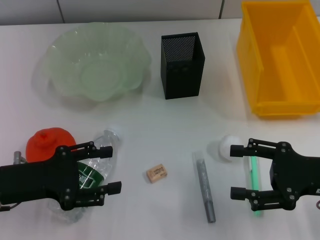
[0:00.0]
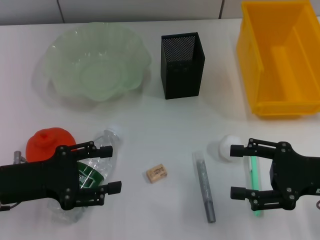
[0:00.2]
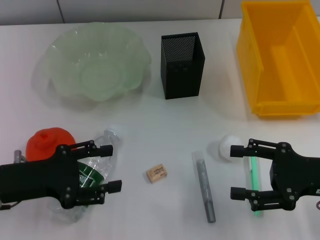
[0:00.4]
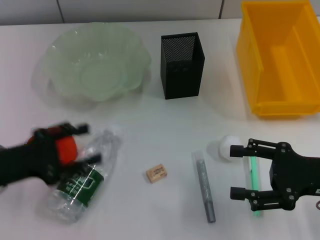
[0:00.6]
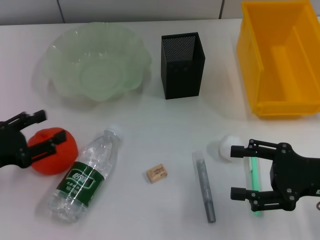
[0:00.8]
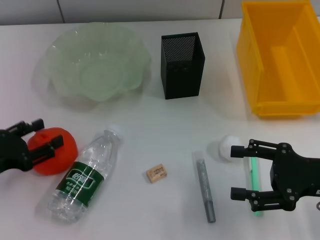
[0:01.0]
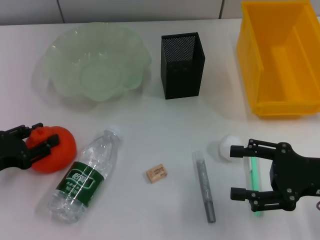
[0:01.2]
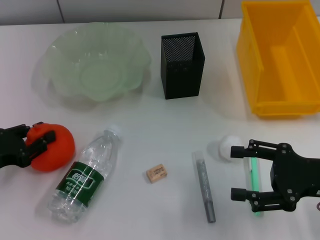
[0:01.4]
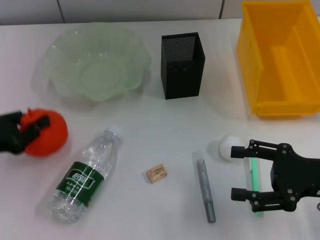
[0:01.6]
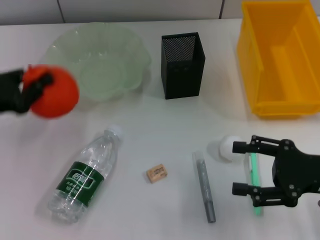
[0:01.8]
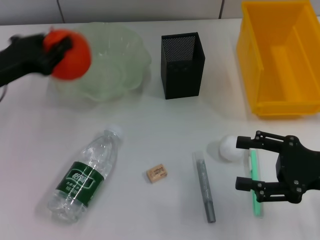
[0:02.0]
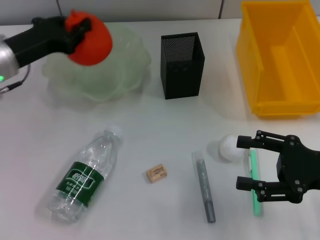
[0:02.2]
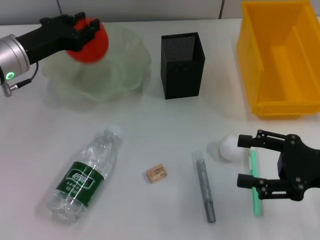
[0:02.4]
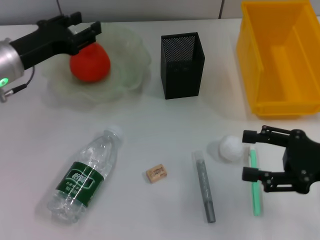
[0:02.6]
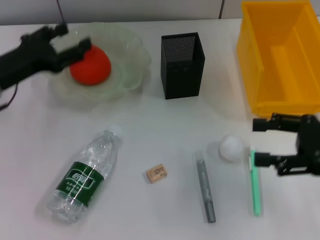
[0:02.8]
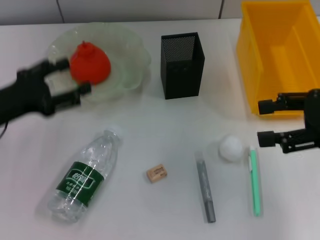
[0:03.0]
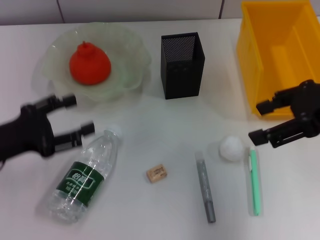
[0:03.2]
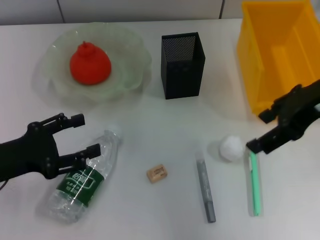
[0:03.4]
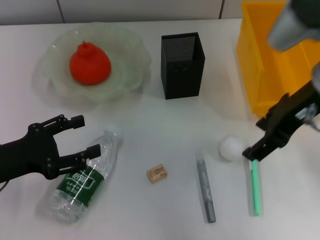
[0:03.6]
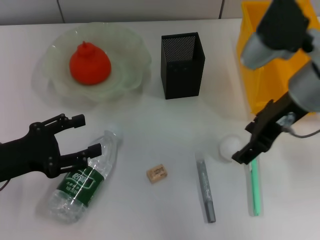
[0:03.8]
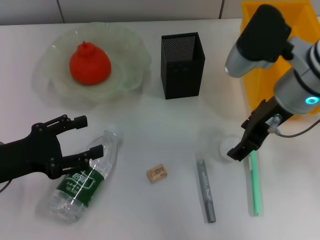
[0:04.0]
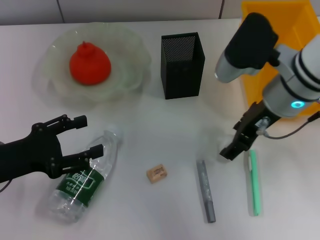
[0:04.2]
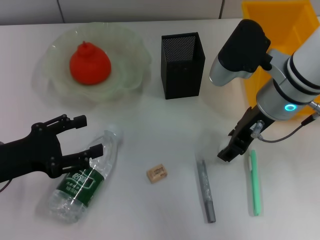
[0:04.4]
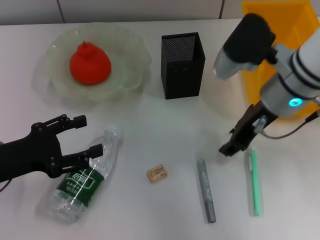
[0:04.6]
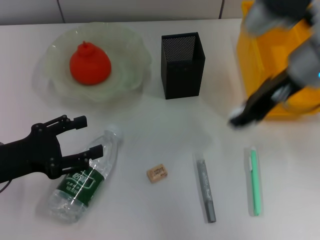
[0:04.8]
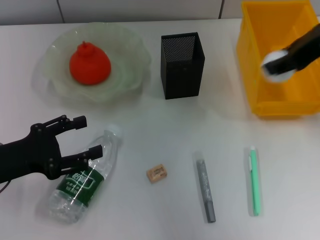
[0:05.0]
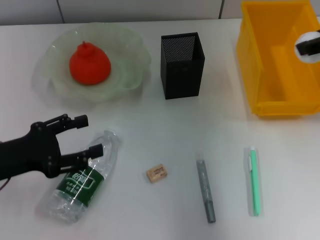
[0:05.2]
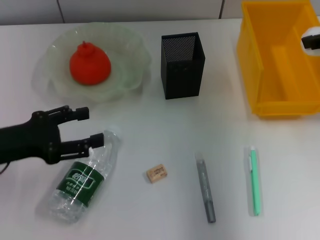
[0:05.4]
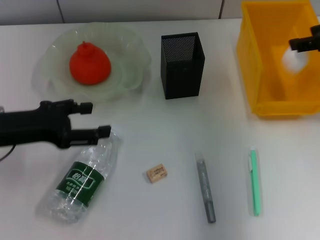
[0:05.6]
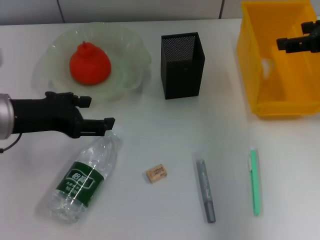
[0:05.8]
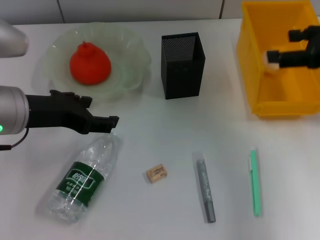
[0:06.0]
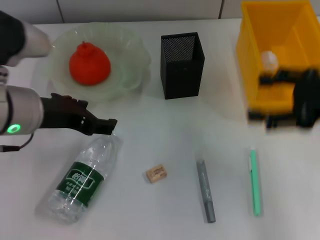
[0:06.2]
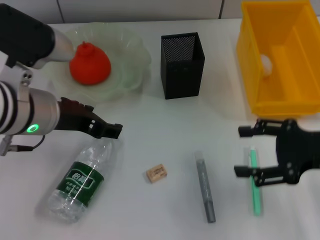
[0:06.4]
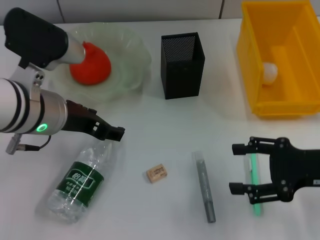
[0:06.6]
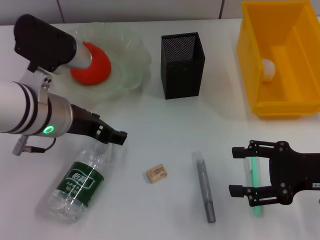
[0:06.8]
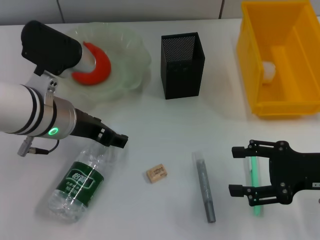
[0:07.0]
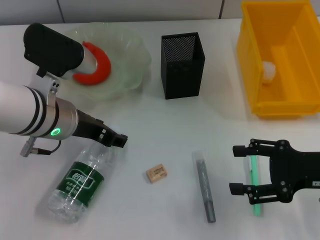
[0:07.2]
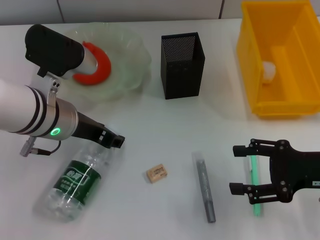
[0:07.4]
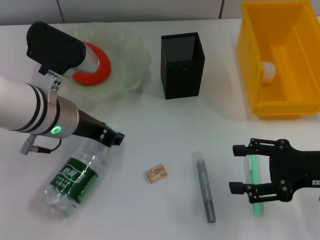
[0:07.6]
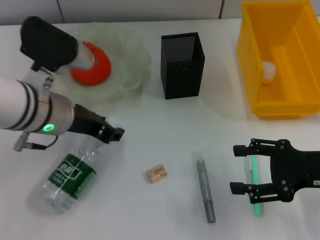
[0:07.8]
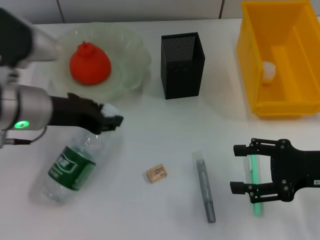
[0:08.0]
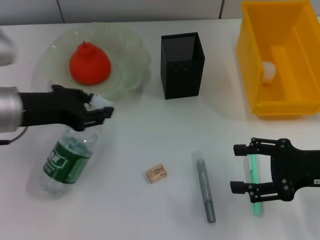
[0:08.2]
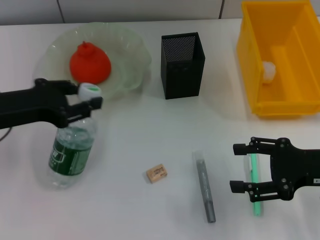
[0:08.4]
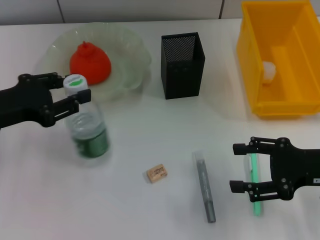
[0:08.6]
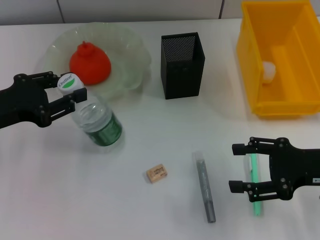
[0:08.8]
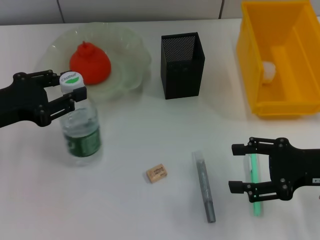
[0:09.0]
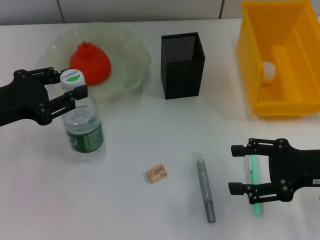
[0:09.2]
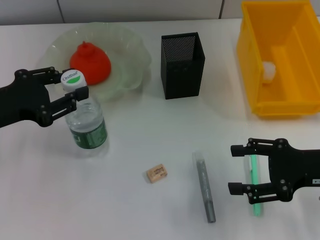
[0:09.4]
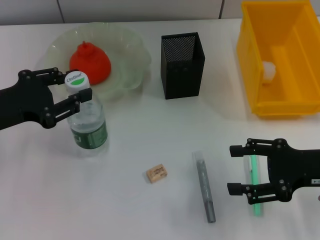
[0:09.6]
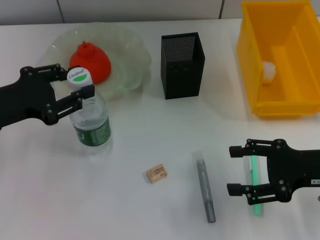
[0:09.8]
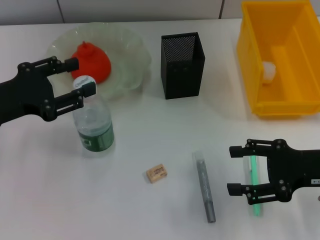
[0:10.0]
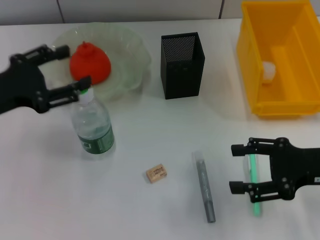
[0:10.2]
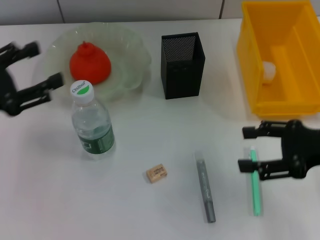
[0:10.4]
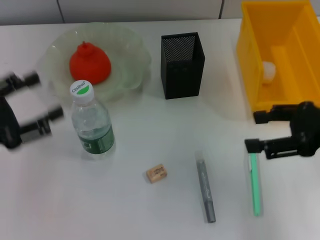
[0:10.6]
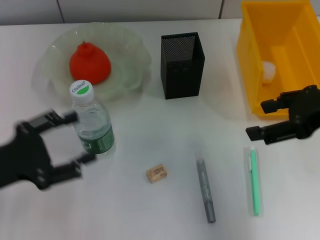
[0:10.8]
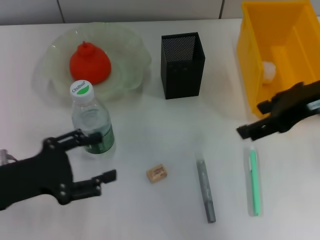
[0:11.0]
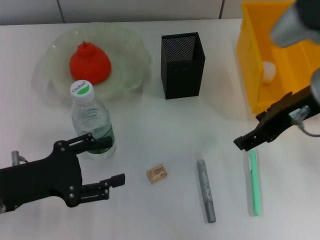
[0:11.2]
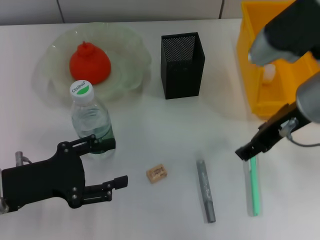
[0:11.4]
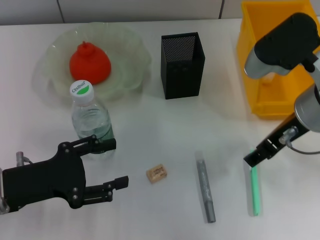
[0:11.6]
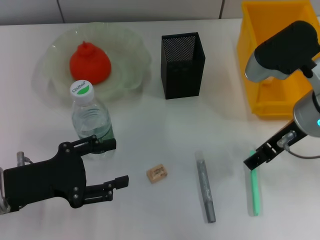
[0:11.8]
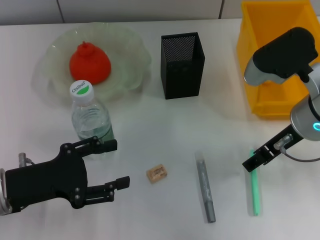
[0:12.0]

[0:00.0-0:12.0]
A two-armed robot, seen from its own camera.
Step, 0:00.0 to 0:01.4: Grab the orange with the left hand.
Step, 0:01.6 to 0:02.6: Place the orange into the fruit bowl with the left hand.
Step, 0:02.8 to 0:04.4: Grab the paper ball with the right hand.
Step, 0:04.6 to 0:05.6: Place the paper ball into the trash can with the right hand.
Step, 0:05.8 to 0:07.6: Grab the water bottle with the left hand.
Step, 0:07.8 to 0:09.8: Place the water bottle on the table with the left hand.
0:00.0 to 0:01.6: The left gripper moves to the left, approximately 5 cm, and closes.
0:01.6 to 0:03.0: The right gripper travels upward by some 10 cm. Meanwhile the left gripper goes forward and returns, some 15 cm each way, and opens its fingers.
0:03.0 to 0:04.4: The left gripper shifts about 5 cm backward, while the right gripper goes roughly 15 cm to the left and forward.
0:04.4 to 0:06.0: The right gripper travels to the right by some 15 cm, and closes and opens again. The left gripper goes roughly 15 cm upward and to the right.
0:06.0 to 0:07.6: The right gripper is displaced downward and backward by roughly 15 cm, while the left gripper shifts by approximately 10 cm, and closes.
0:07.6 to 0:09.0: The left gripper shifts roughly 15 cm to the left.
0:09.0 to 0:10.4: The left gripper opens up.
0:10.4 to 0:12.0: The left gripper travels downward and to the right by about 10 cm. The right gripper travels to the left and forward by roughly 10 cm.

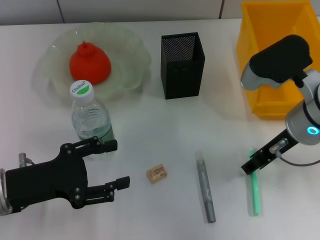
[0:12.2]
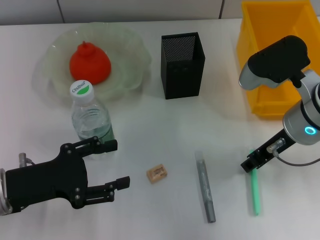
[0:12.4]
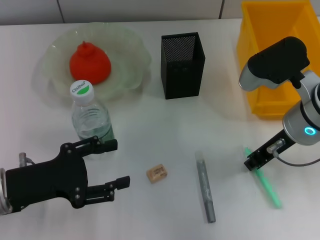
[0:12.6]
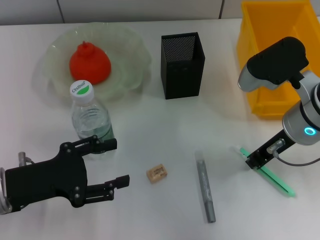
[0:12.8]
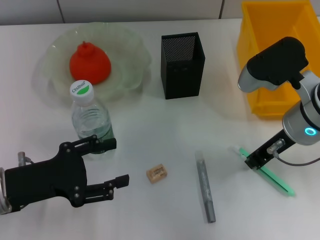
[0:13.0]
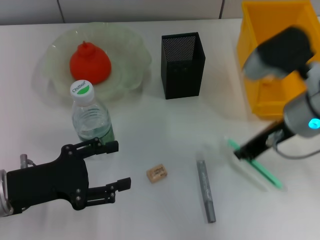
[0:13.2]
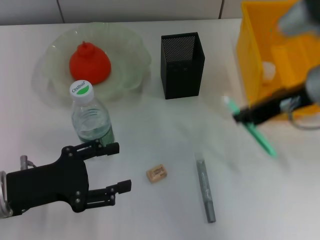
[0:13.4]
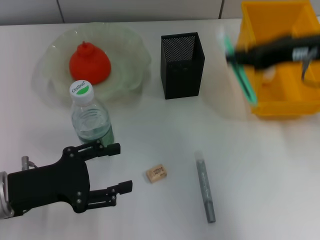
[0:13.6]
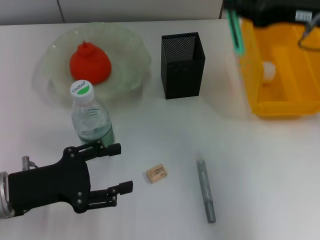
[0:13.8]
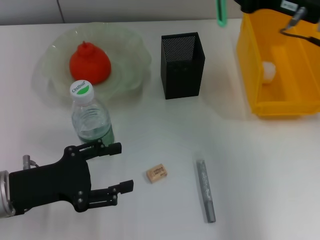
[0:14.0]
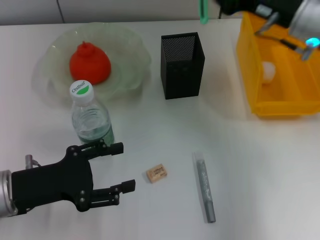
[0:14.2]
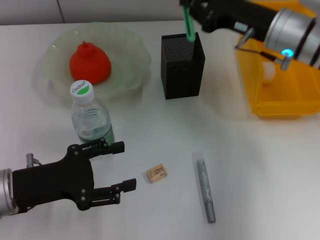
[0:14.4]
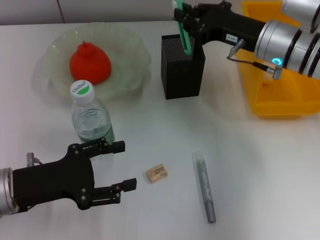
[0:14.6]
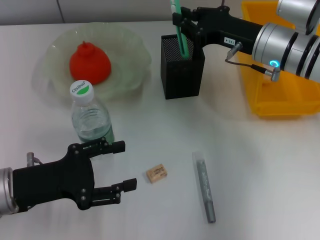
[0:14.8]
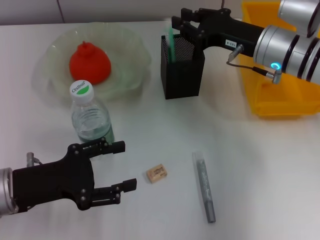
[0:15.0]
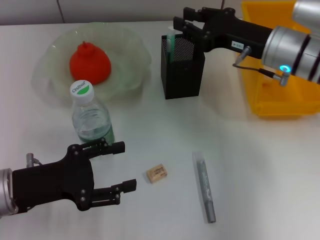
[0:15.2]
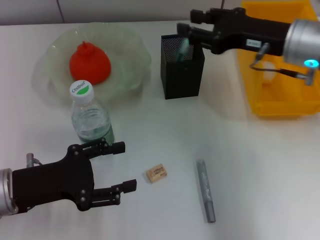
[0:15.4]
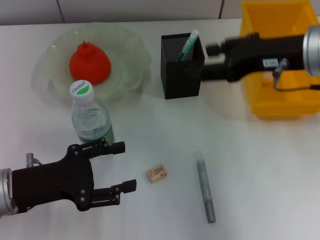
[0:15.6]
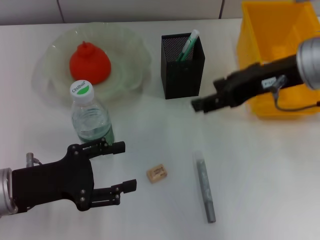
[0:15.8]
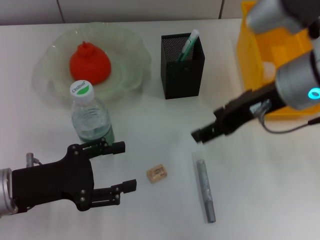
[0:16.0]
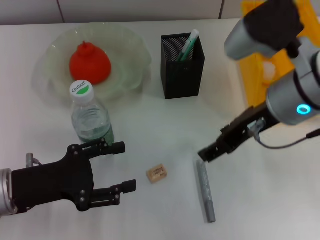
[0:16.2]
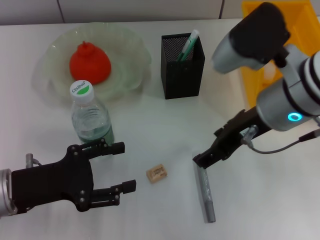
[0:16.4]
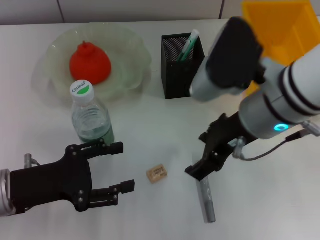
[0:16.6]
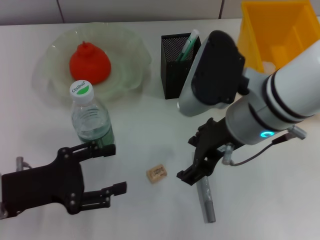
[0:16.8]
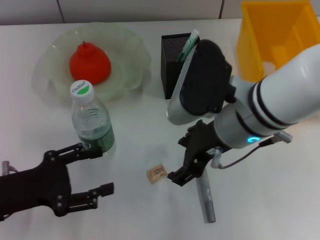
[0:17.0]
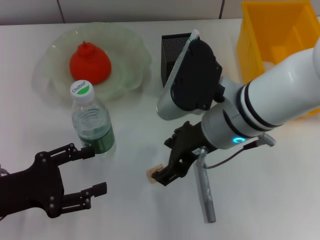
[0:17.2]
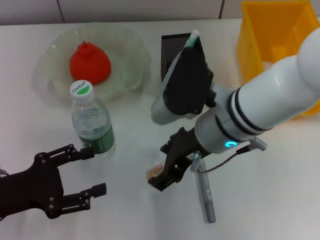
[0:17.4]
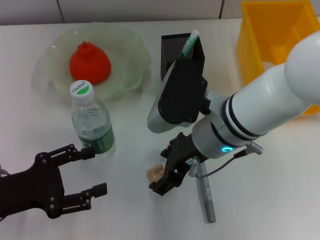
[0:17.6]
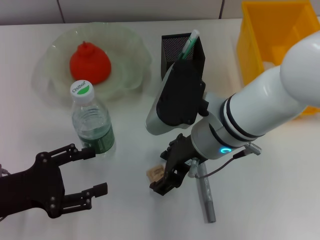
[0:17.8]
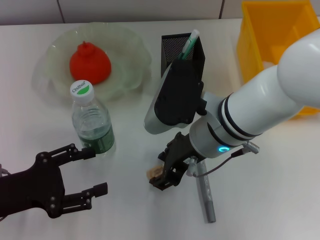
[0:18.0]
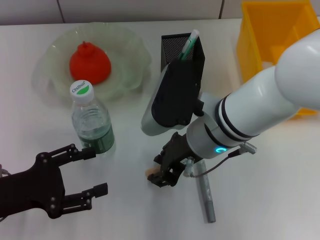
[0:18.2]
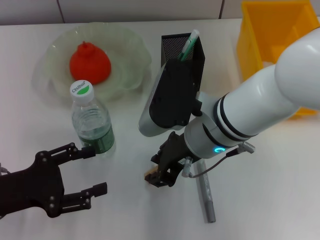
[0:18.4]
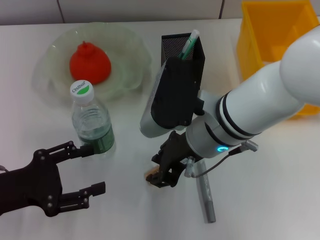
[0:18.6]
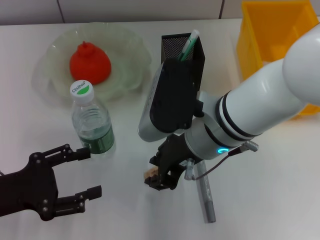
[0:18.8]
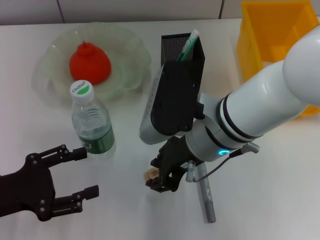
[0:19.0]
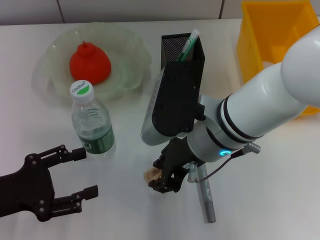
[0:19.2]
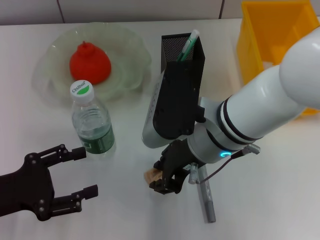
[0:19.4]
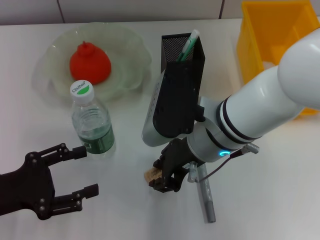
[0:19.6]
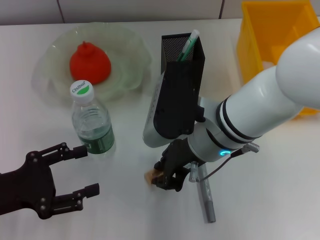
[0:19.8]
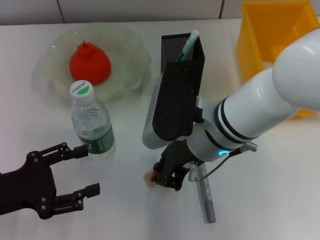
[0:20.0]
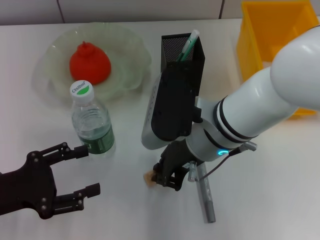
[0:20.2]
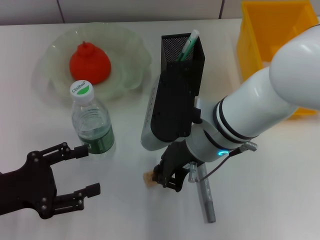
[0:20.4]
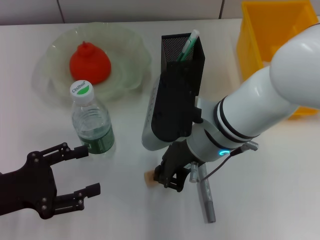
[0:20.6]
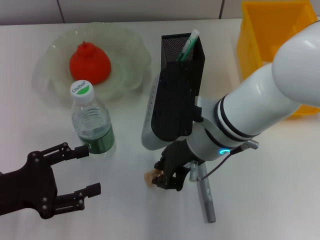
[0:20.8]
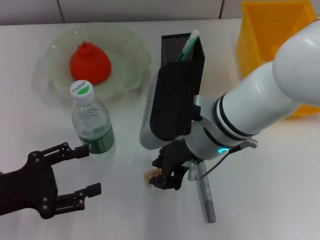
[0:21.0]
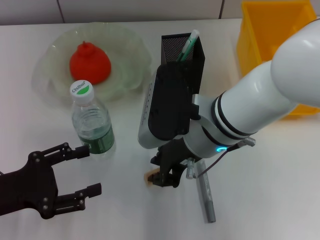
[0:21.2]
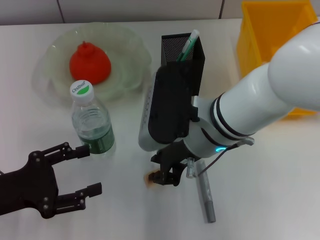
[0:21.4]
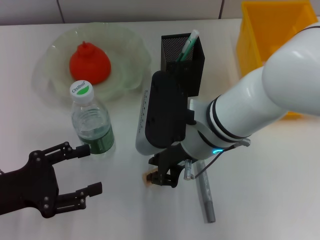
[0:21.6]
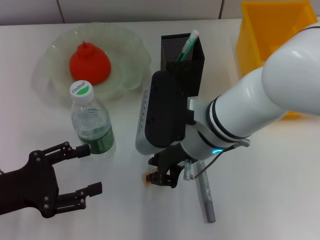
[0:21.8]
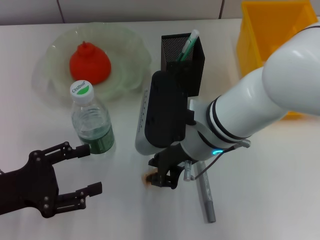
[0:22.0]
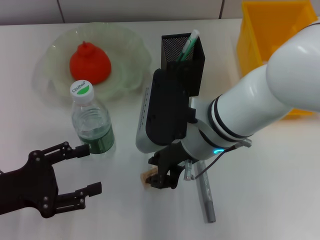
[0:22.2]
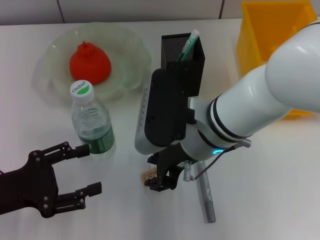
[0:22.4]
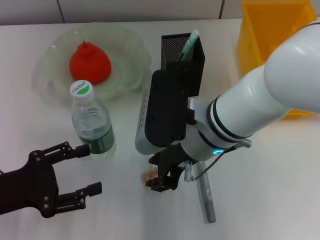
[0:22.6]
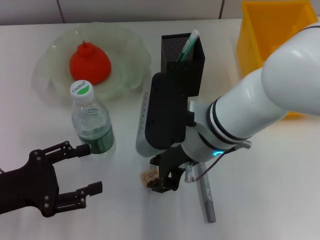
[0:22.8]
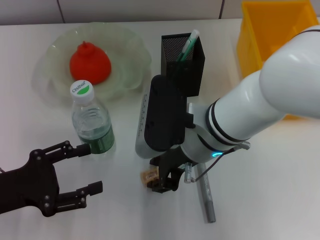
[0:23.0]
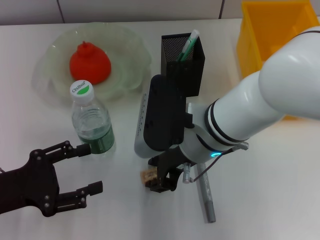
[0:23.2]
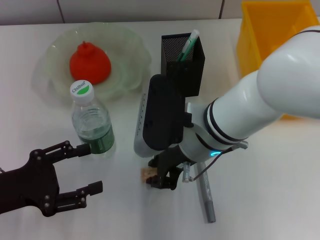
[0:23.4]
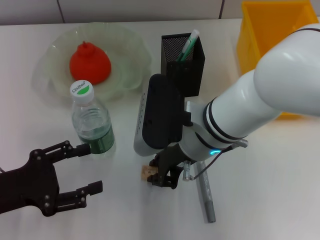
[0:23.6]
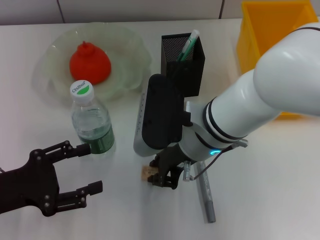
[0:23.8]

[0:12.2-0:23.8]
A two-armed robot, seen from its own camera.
Step, 0:13.2 to 0:15.0: Place the blue utility knife into the pen holder with the right hand.
0:12.2 to 0:13.6: The right gripper shifts about 10 cm upward, and closes up.
0:13.6 to 0:15.0: The right gripper is displaced downward and forward by about 15 cm.
0:15.0 to 0:16.6: The right gripper shifts roughly 15 cm backward, to the left and upward, and opens.
0:16.6 to 0:18.0: The right gripper is displaced downward by about 5 cm.
0:18.0 to 0:19.4: The right gripper closes up.
0:19.4 to 0:21.0: The two grippers keep their place.
0:21.0 to 0:22.4: Neither gripper changes place.
0:22.4 to 0:23.8: The two grippers keep their place.
